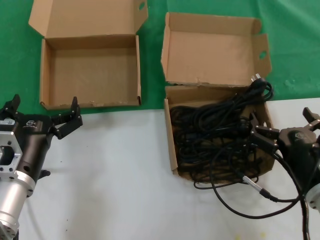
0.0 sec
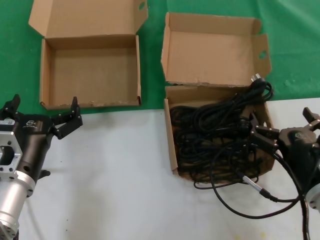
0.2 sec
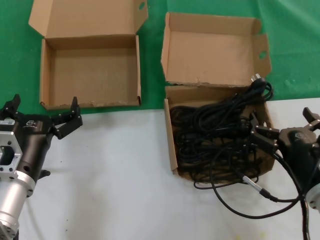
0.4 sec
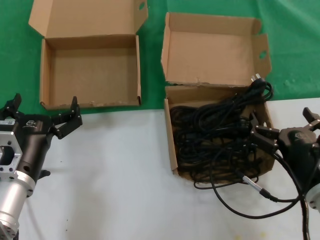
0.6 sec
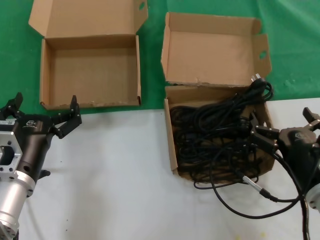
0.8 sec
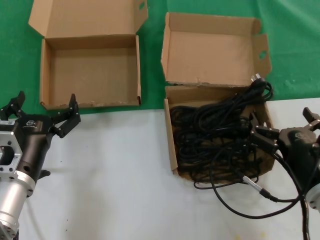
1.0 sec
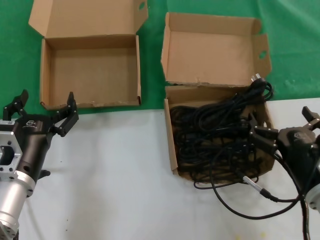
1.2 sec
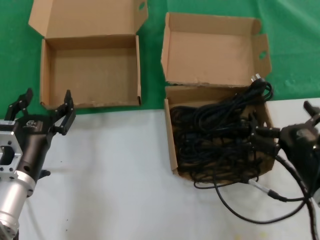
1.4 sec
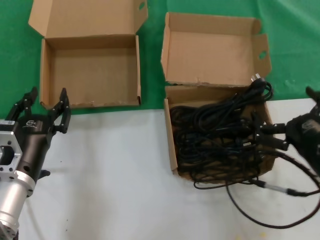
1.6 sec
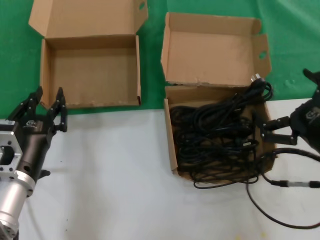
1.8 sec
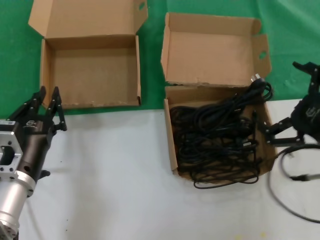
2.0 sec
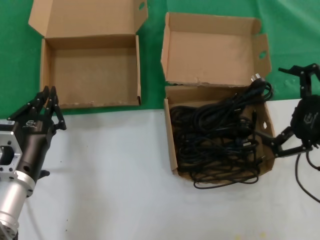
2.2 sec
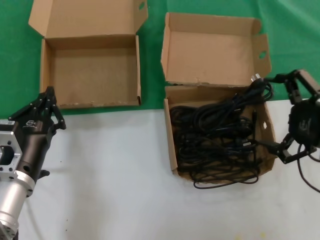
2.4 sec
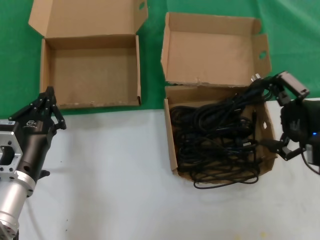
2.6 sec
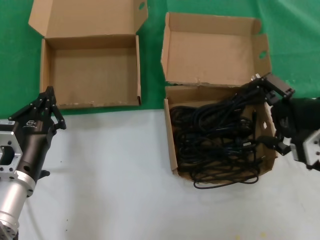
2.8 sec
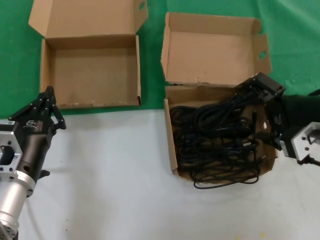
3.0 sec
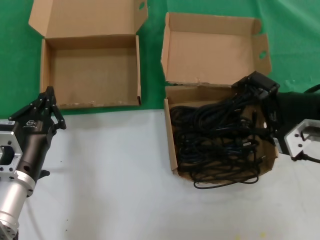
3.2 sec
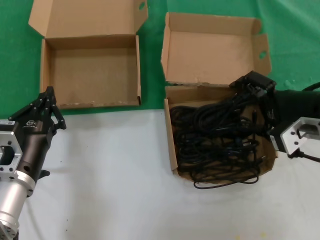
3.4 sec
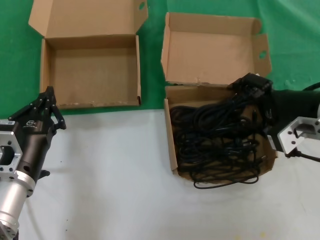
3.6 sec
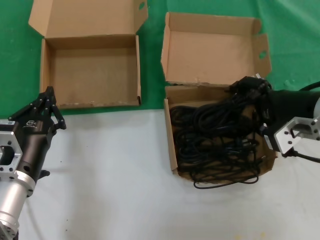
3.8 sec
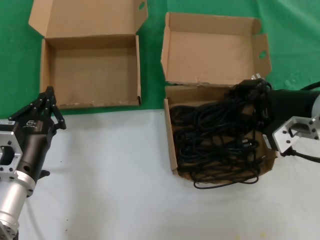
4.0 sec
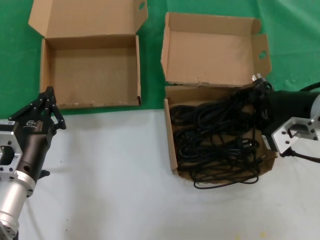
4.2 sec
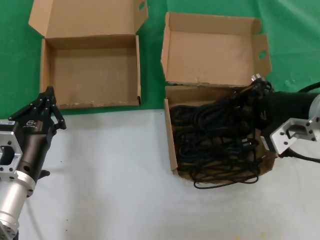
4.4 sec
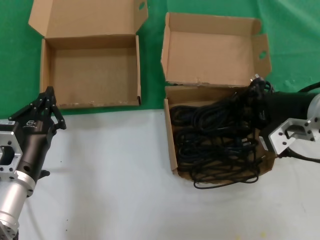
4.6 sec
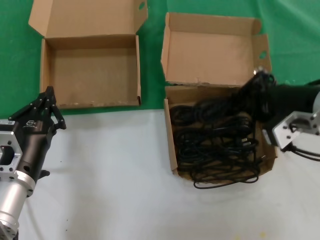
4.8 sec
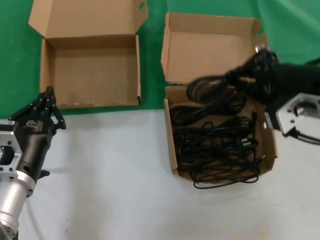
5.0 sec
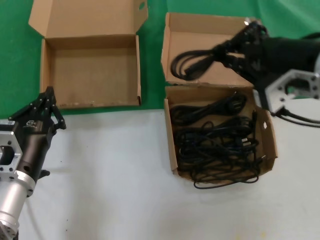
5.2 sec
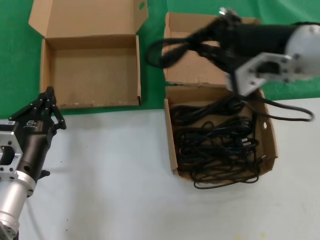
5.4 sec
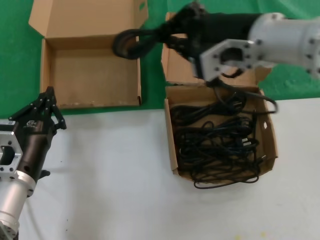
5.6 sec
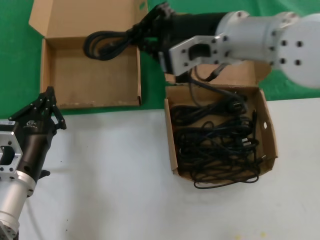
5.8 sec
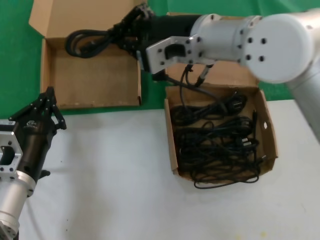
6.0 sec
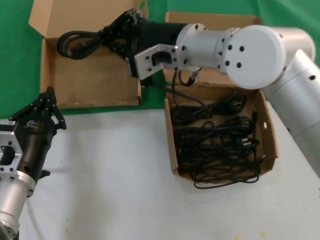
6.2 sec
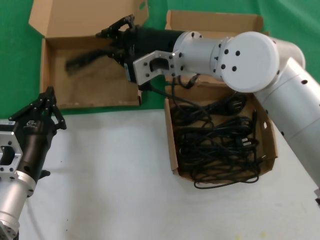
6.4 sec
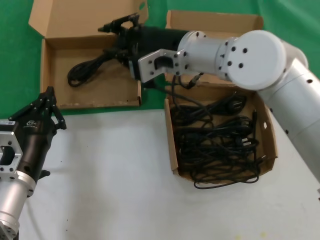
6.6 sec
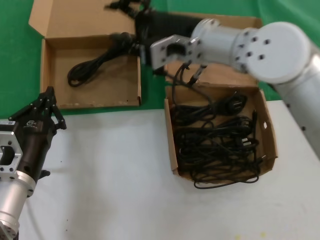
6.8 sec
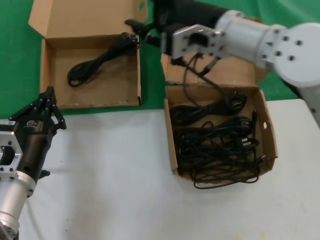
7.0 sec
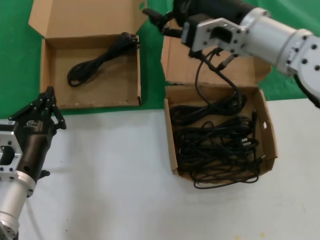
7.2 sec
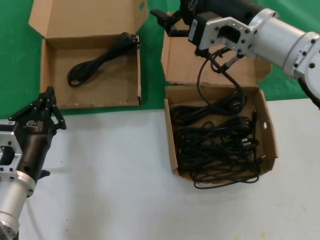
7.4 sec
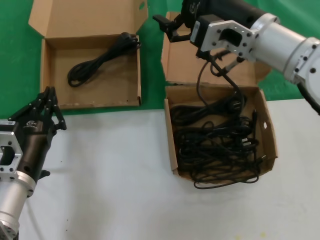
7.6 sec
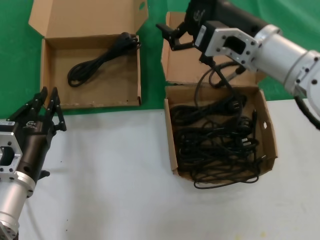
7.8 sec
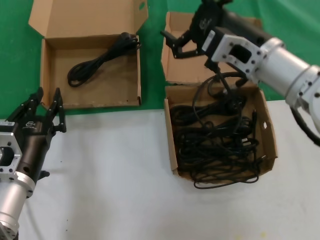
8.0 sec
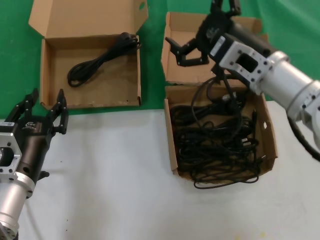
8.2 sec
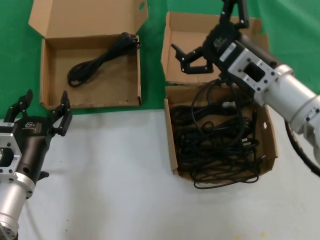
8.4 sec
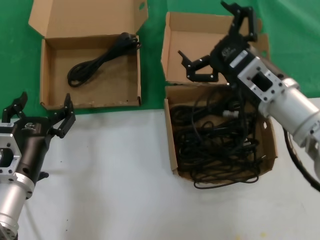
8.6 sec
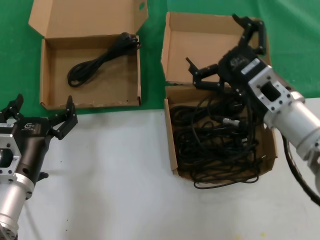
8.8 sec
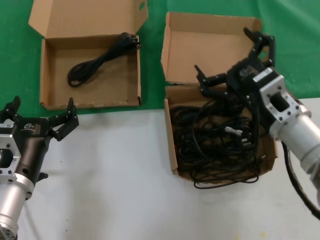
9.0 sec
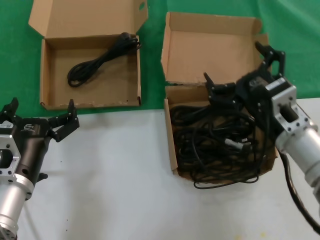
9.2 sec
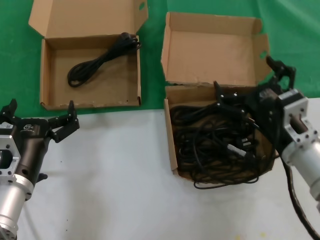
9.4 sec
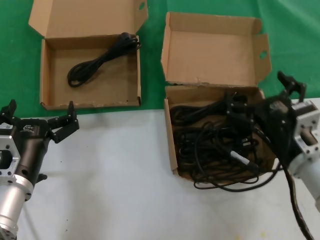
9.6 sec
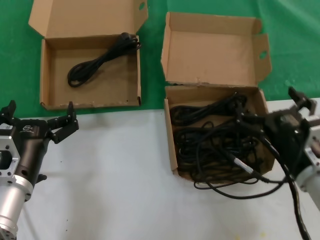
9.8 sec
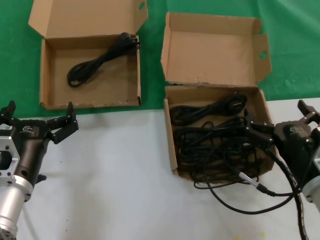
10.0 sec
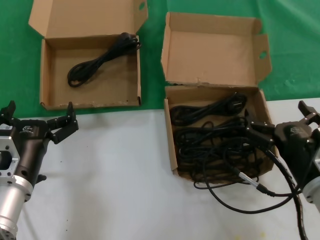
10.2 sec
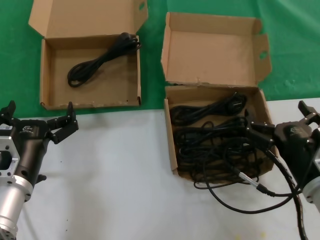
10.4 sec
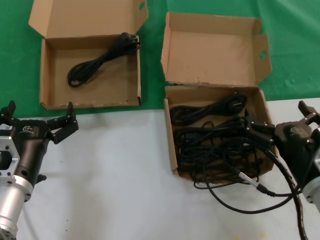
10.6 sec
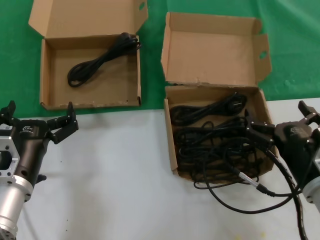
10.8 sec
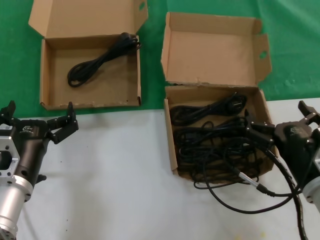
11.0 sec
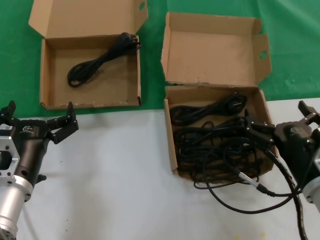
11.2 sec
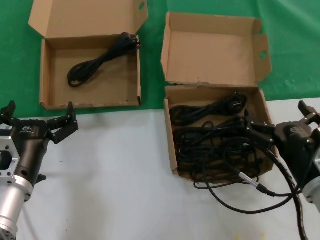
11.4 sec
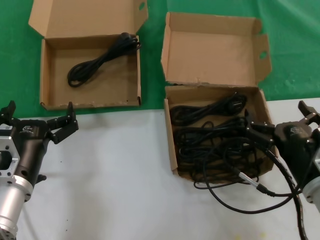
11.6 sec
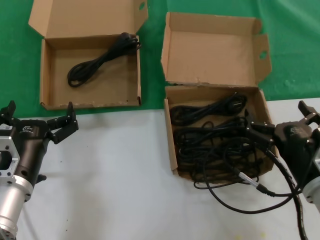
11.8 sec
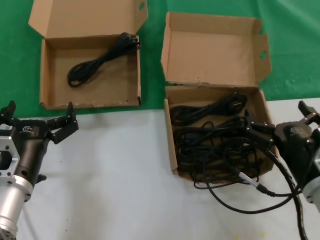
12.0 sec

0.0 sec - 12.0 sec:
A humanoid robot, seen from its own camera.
Task of the whole recording: take the parts from the box containing them and put them into an empty box.
Step, 0.0 sec - 4.4 sec: Grasp the data cable.
Step, 4.6 sec - 6.4 sec: Place the data cable in the another box.
0.0 sec - 1.6 sec: The hands make only small movements.
1.6 sec - 3.0 sec: The right hand travels upward and forward by some 15 cm.
3.0 sec - 4.4 sec: There are only small adjustments of the hands.
4.4 sec - 6.0 sec: The right hand travels to the left and upward by approximately 20 cm.
6.0 sec - 7.6 sec: The right hand moves to the right, approximately 10 cm.
7.6 sec - 9.0 sec: The right hand travels downward and backward by approximately 15 cm.
9.0 sec - 10.4 sec: The right hand heads downward and backward, covering approximately 10 cm.
10.4 sec - 12.0 sec: Neither hand changes place.

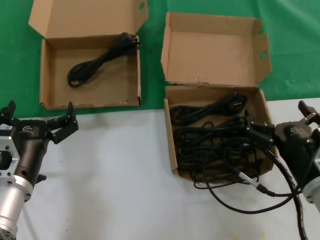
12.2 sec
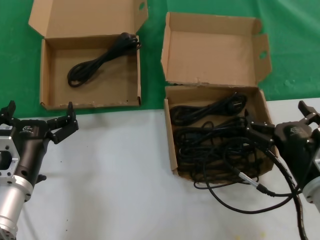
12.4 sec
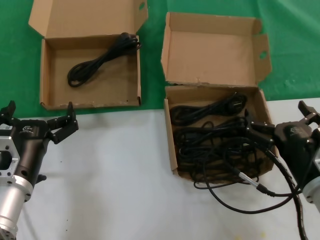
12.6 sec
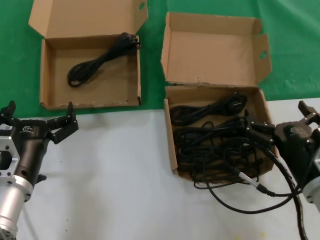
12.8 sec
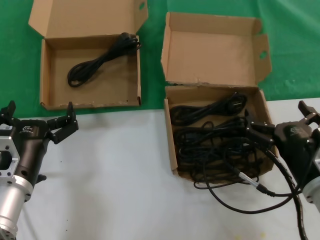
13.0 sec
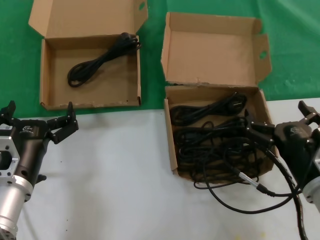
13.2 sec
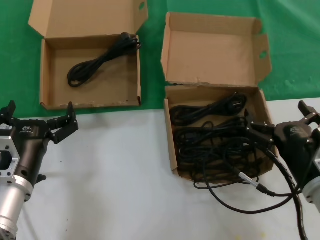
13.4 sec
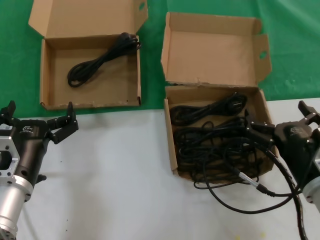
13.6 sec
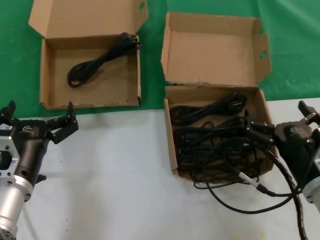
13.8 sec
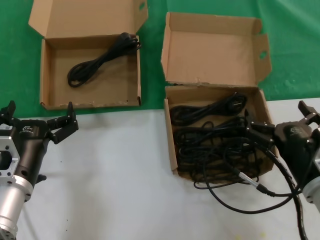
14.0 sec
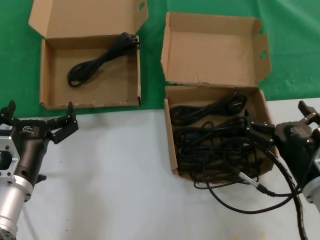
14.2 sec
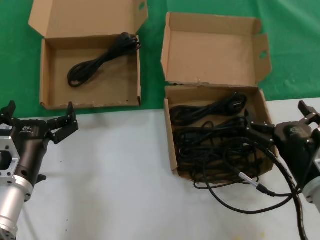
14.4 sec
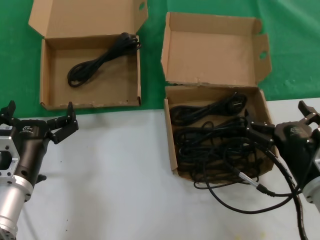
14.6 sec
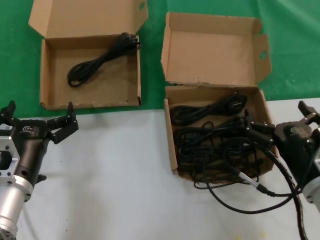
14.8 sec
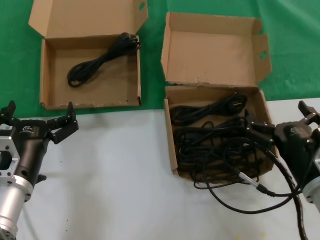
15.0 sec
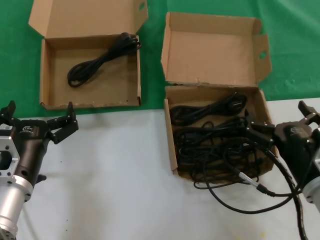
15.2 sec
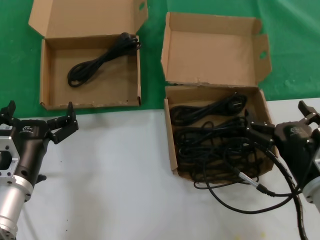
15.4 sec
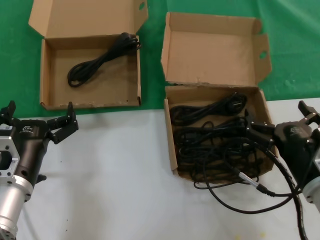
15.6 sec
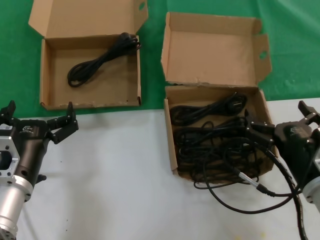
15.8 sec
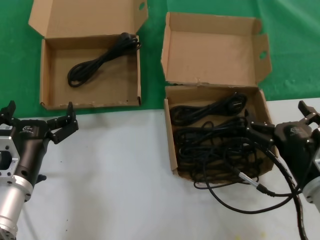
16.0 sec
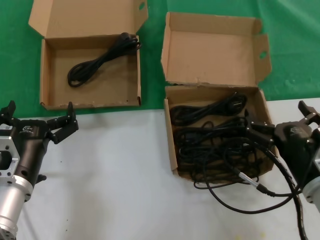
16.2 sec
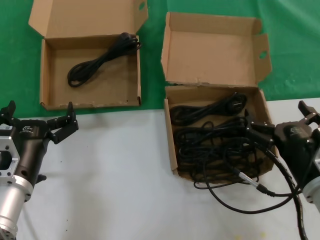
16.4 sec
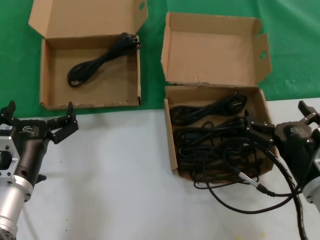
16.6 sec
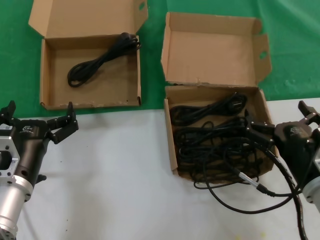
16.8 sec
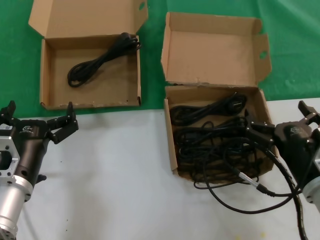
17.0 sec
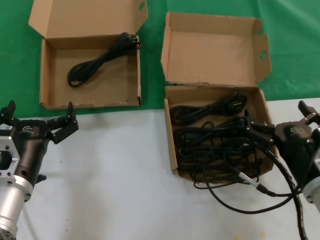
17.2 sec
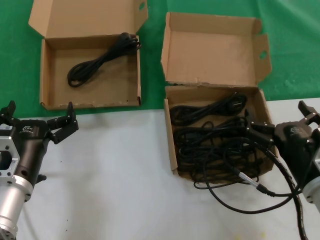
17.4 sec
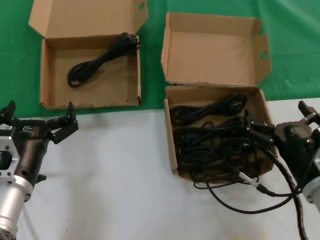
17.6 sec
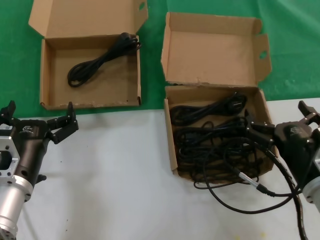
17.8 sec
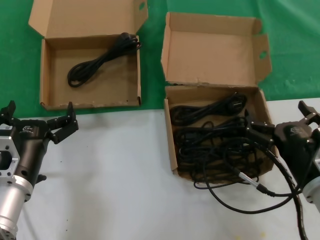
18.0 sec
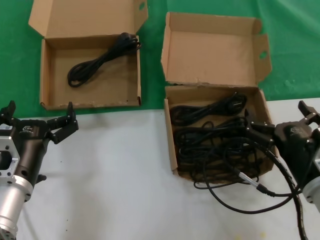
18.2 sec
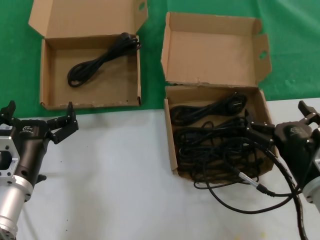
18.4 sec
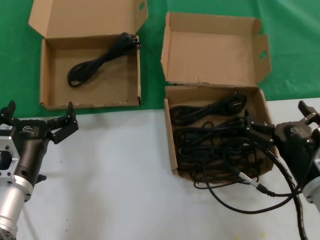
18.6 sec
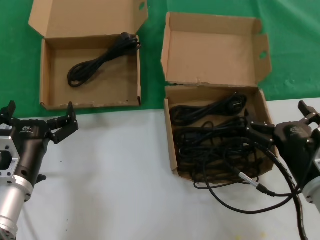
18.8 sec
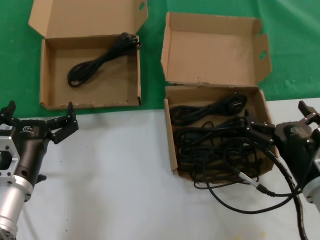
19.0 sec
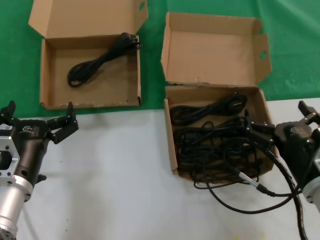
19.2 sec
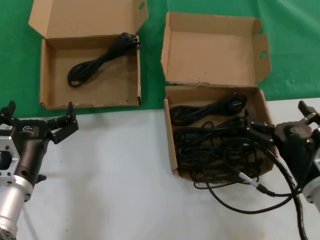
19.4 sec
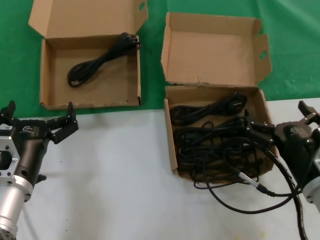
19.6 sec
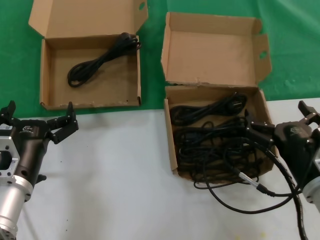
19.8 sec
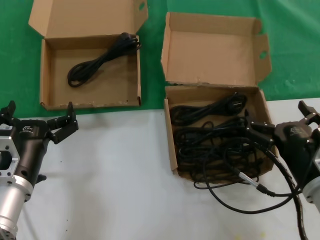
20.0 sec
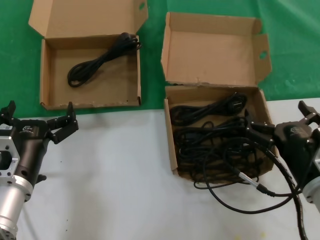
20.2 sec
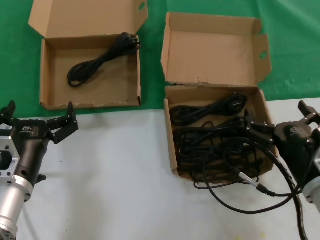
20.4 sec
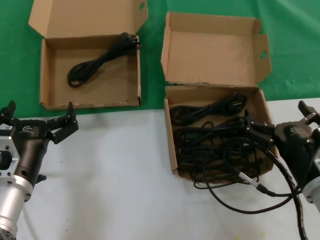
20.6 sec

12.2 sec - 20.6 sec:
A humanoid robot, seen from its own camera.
Task of the whole recording: take the parts from the box containing them and put them into an empty box.
12.2 sec - 20.6 sec: Both hands stay put.

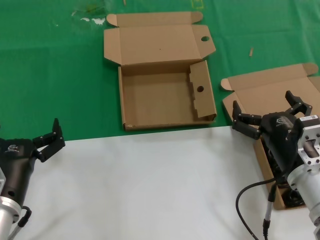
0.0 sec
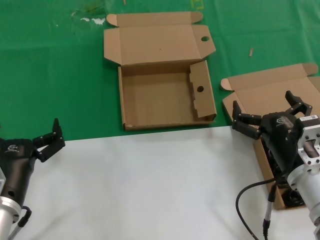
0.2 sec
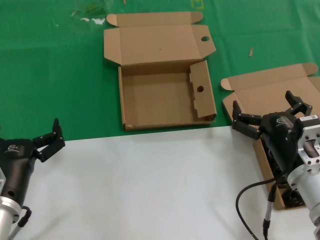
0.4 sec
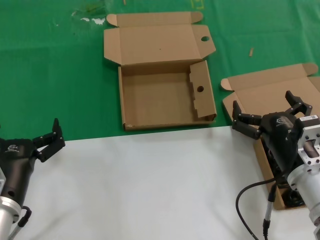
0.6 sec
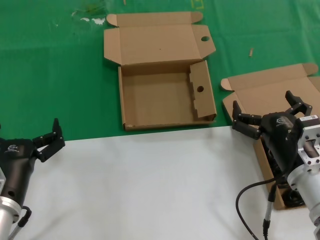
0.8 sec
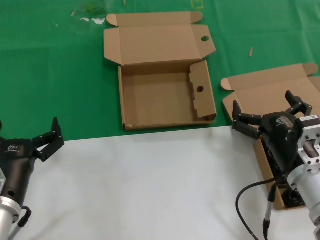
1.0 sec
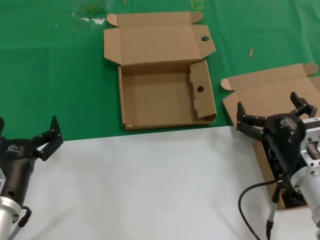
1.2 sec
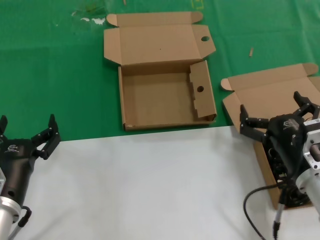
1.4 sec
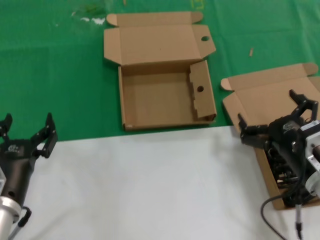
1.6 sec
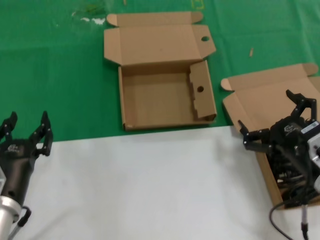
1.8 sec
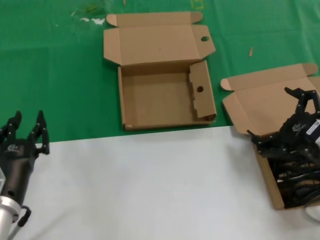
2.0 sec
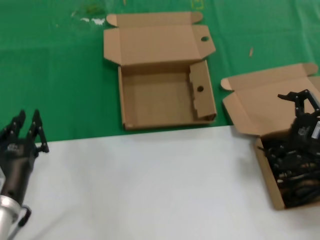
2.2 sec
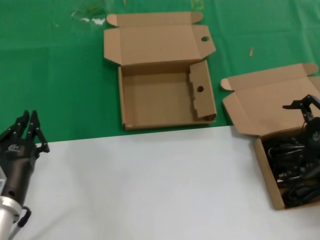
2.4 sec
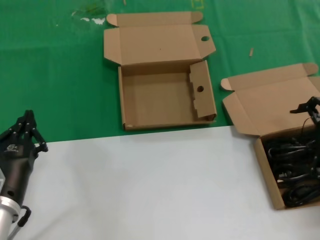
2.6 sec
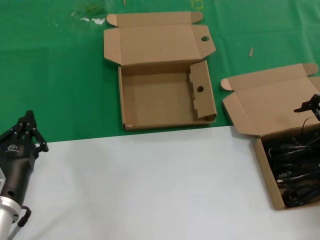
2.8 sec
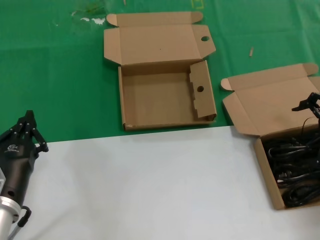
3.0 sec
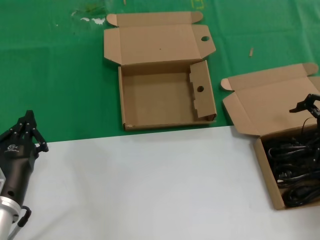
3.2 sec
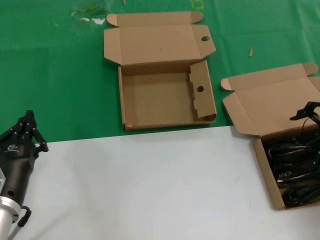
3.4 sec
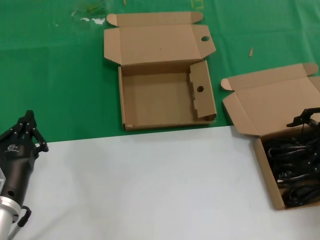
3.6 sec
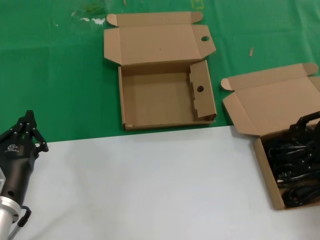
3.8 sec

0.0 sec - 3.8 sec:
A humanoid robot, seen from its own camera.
Task of the whole recording: take the parts from the box containing them and put them into an empty box.
0.0 sec - 1.2 sec: Both hands stay put.
1.2 sec - 2.6 sec: The right hand moves to the right and upward, roughly 20 cm.
2.6 sec - 3.8 sec: There are only small adjustments of the hands.
